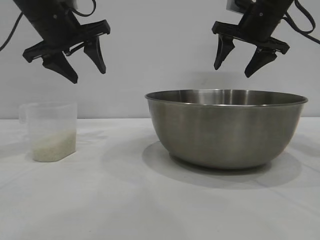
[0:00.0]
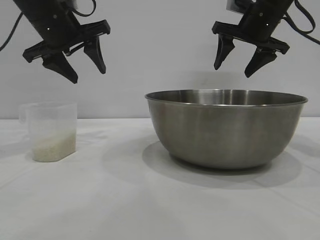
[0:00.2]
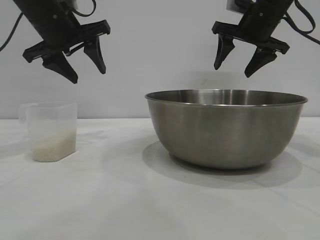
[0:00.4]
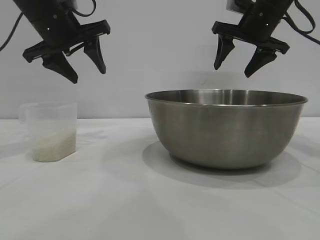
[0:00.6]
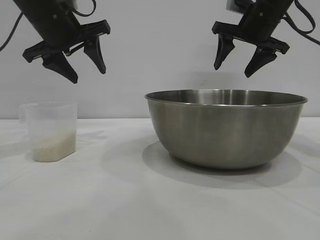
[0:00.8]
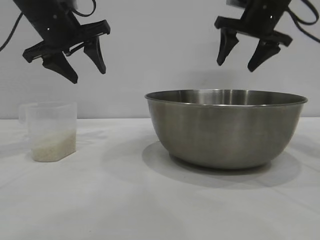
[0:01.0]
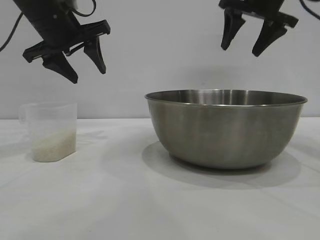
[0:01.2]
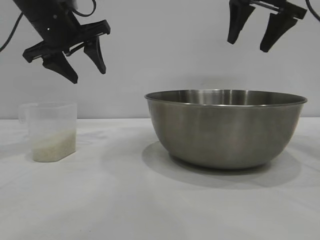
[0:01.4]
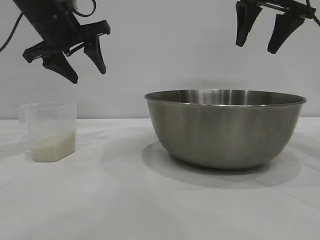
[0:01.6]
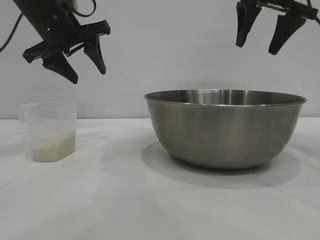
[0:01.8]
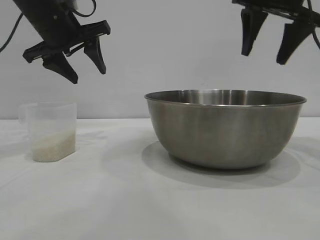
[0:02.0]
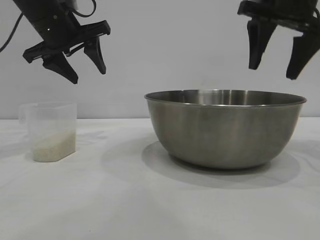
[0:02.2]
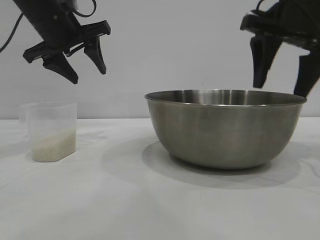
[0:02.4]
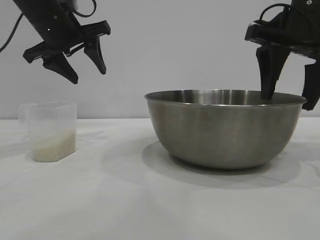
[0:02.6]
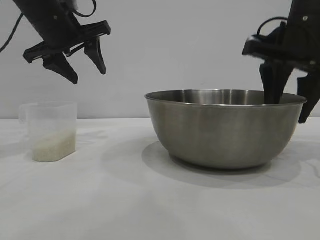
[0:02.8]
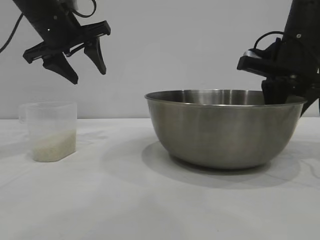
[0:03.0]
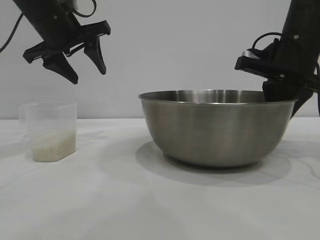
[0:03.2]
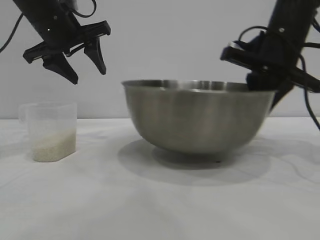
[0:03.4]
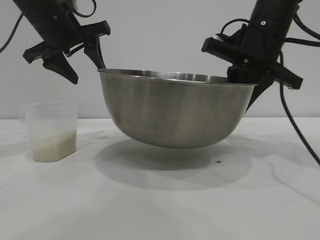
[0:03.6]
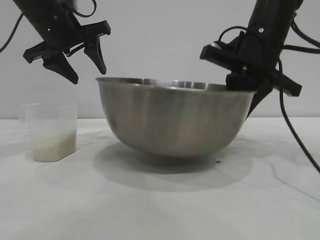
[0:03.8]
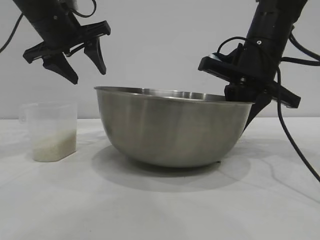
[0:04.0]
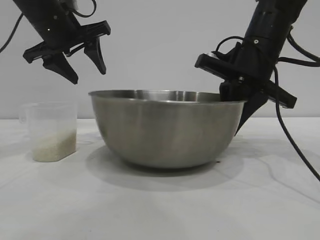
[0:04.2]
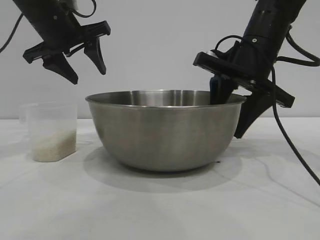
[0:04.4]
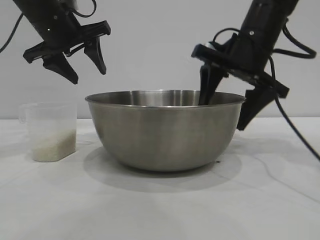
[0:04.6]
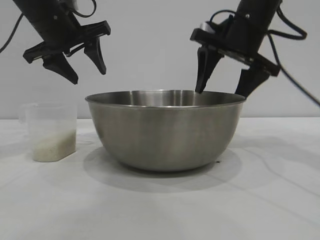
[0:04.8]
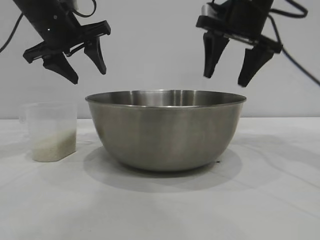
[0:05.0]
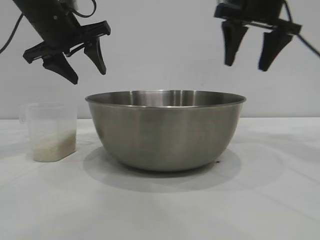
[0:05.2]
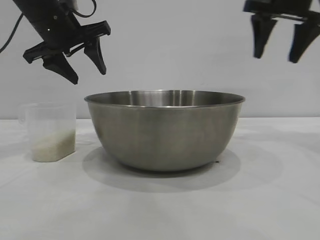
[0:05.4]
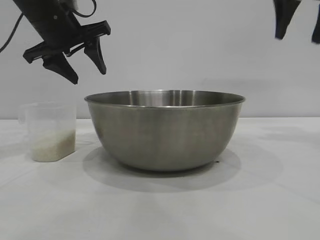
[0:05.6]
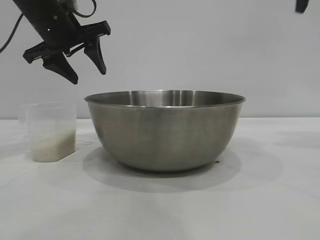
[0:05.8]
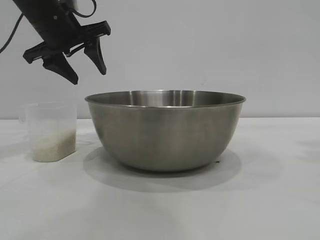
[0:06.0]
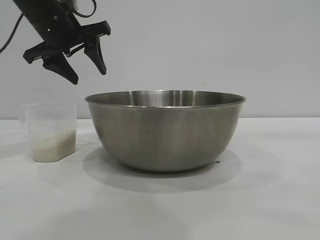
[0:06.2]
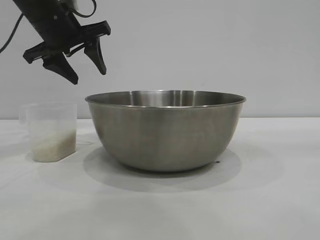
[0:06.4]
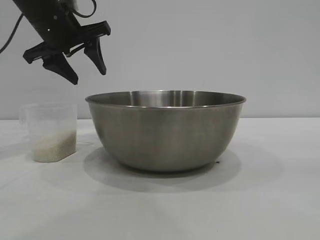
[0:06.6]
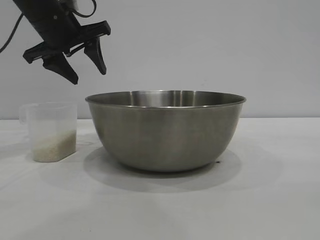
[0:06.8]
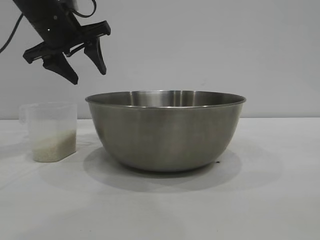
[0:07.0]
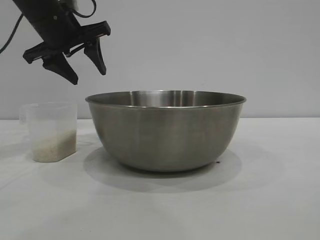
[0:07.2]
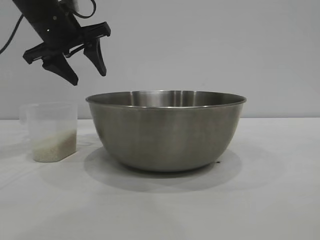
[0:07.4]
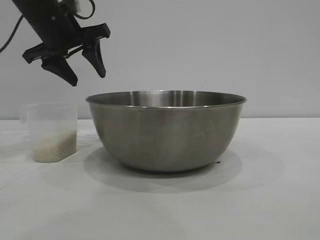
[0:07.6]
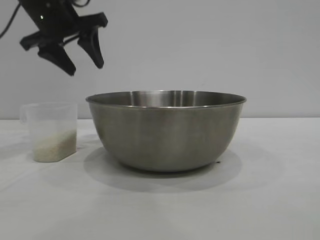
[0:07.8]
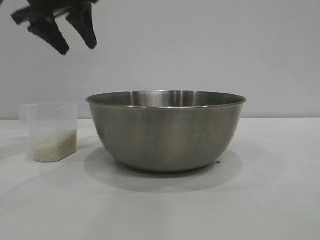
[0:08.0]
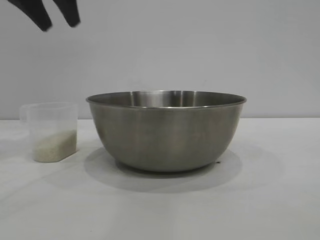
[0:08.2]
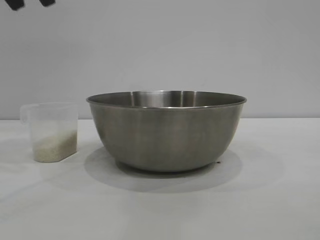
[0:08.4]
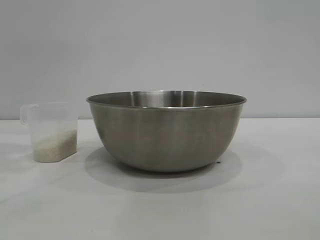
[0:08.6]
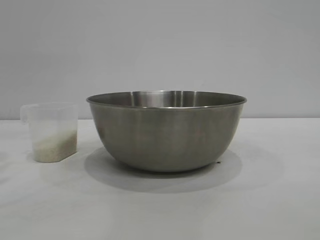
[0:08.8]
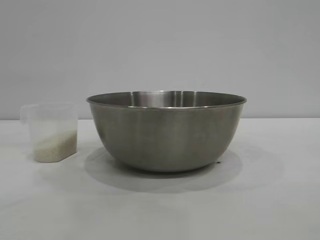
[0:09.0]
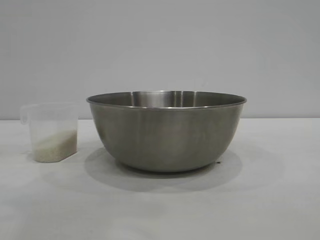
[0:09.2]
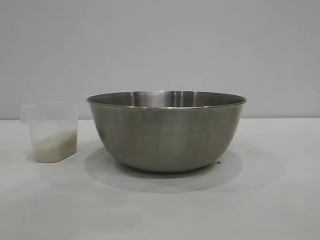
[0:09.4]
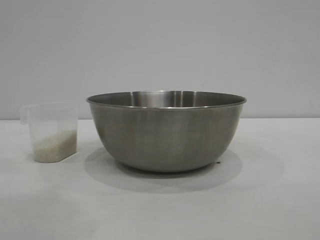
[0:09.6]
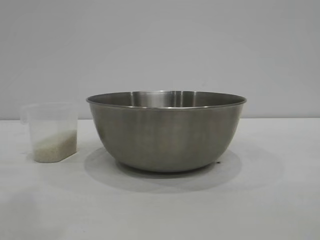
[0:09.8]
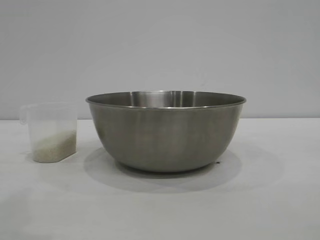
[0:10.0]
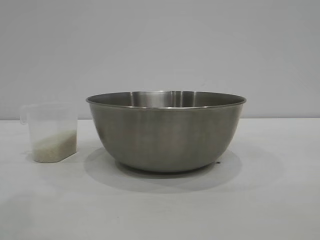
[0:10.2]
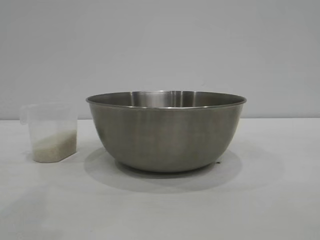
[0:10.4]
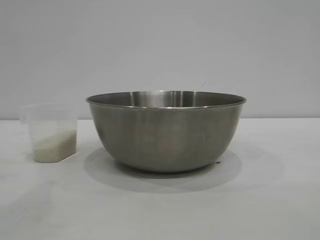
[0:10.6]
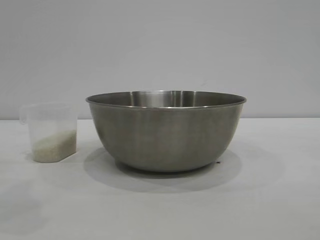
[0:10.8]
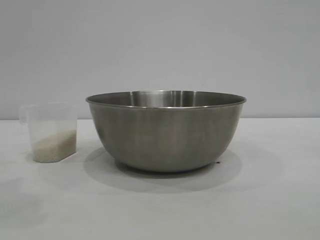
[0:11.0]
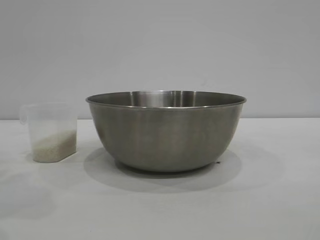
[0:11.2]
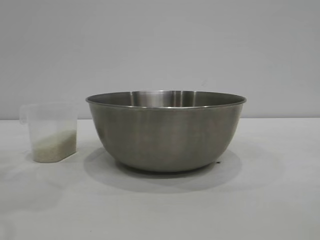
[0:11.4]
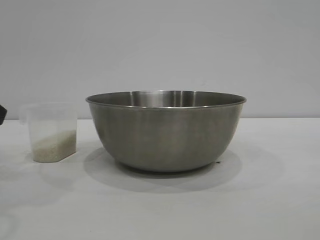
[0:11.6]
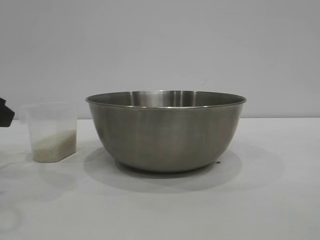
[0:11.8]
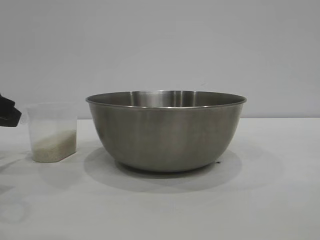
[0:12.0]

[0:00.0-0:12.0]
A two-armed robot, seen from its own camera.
Task of the whole recording: the right gripper grasp the rice container and place it in the center of the table, the left gripper grasp the rice scoop and pour the rice into the rice container.
Step, 0:00.0 to 0:03.4: Pick up the bowl with the right gripper.
Step, 0:03.6 to 0:05.0: Place the bowl in the center of view with the right gripper.

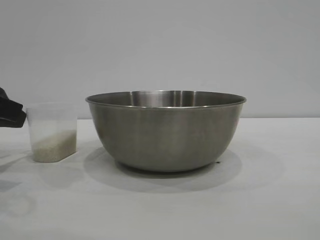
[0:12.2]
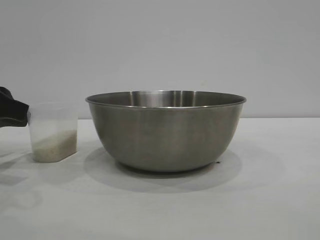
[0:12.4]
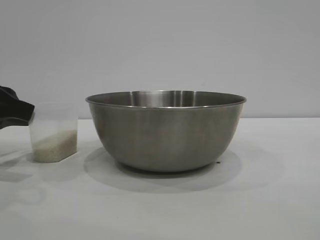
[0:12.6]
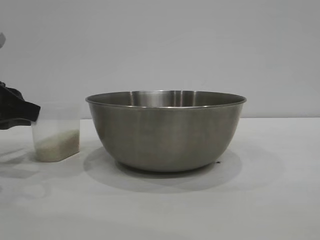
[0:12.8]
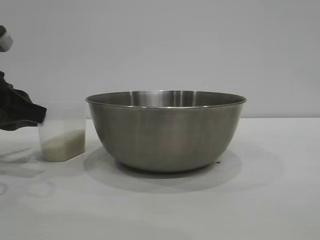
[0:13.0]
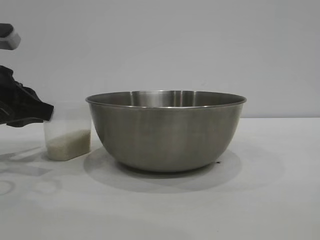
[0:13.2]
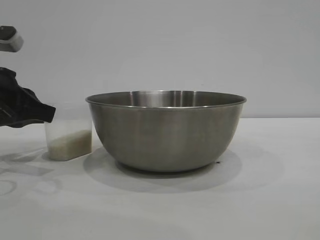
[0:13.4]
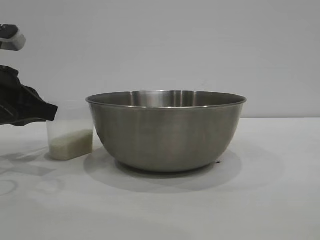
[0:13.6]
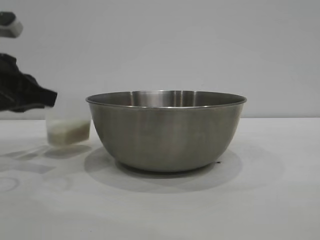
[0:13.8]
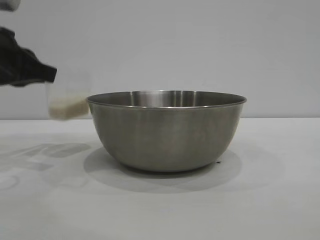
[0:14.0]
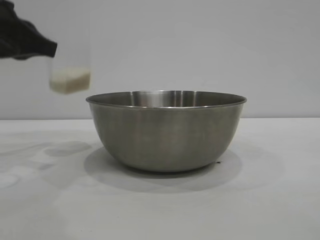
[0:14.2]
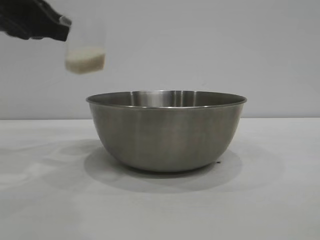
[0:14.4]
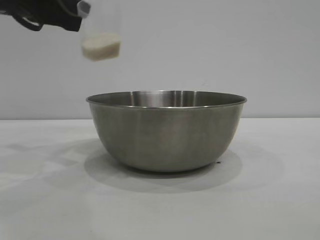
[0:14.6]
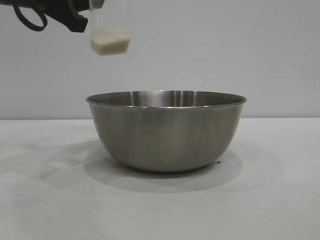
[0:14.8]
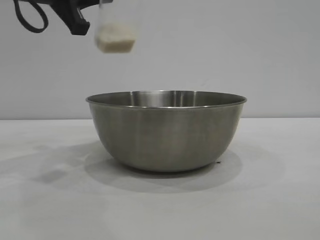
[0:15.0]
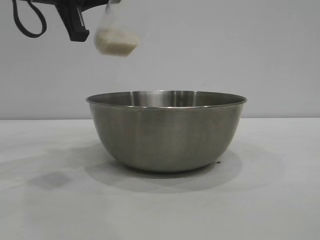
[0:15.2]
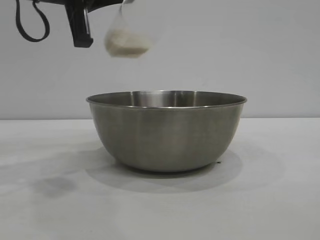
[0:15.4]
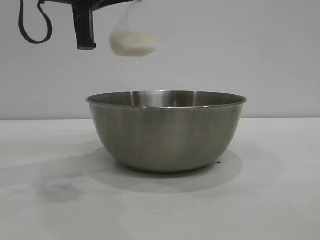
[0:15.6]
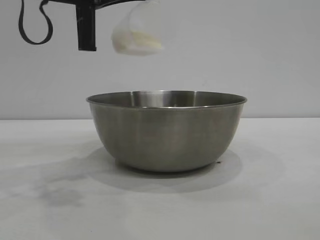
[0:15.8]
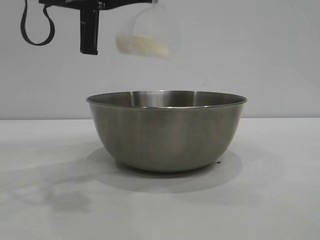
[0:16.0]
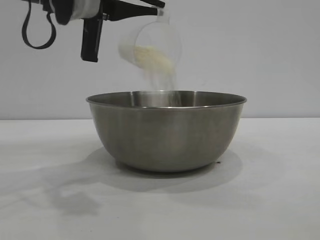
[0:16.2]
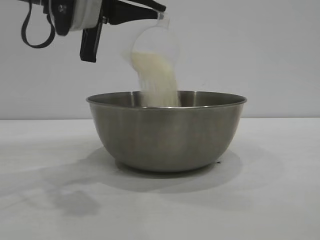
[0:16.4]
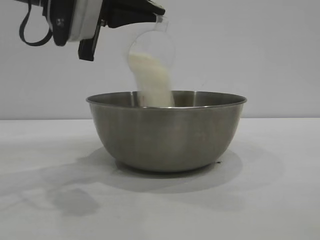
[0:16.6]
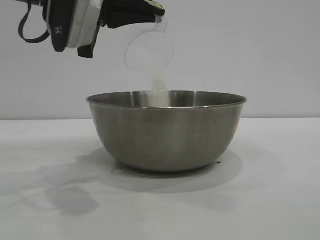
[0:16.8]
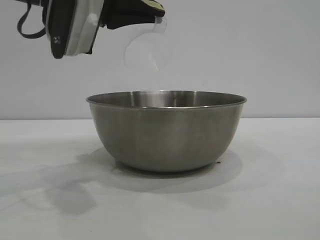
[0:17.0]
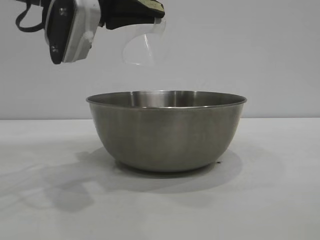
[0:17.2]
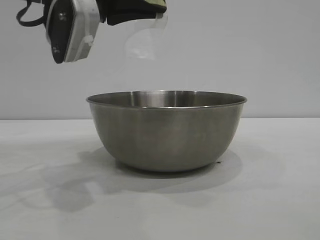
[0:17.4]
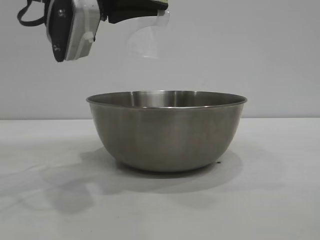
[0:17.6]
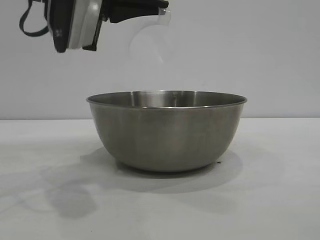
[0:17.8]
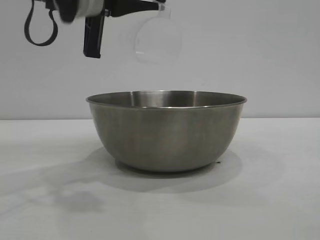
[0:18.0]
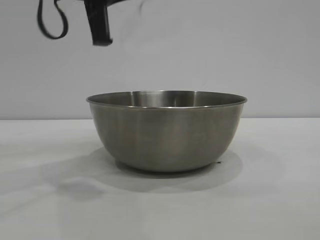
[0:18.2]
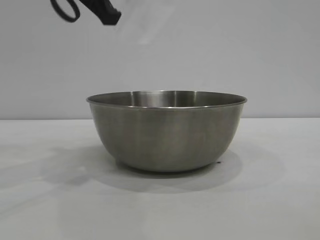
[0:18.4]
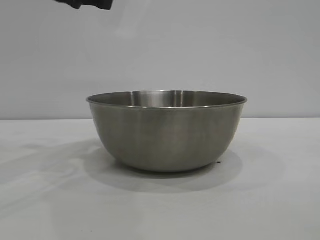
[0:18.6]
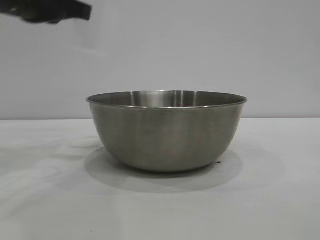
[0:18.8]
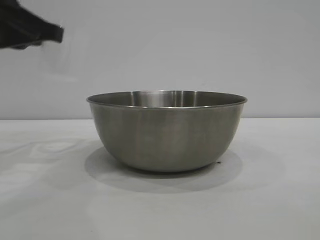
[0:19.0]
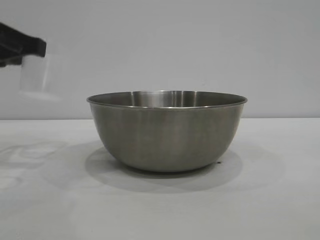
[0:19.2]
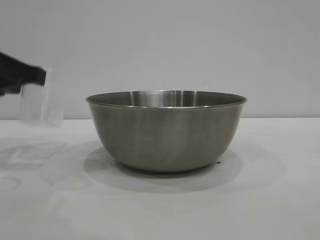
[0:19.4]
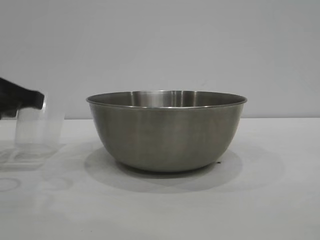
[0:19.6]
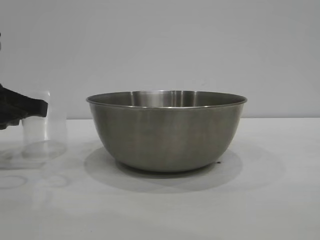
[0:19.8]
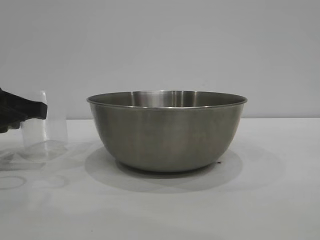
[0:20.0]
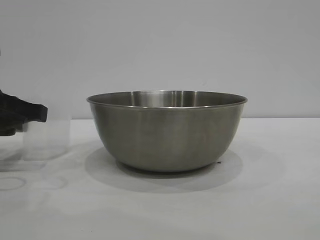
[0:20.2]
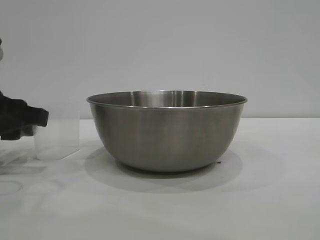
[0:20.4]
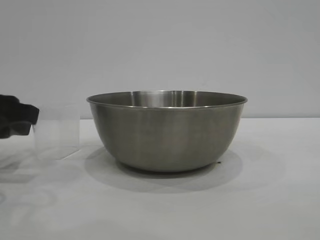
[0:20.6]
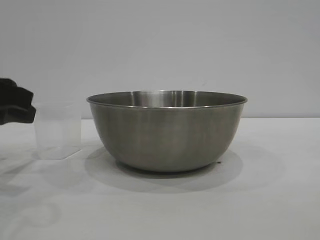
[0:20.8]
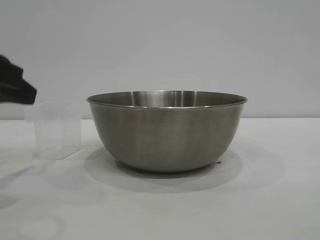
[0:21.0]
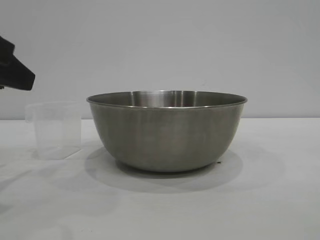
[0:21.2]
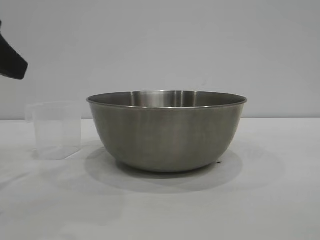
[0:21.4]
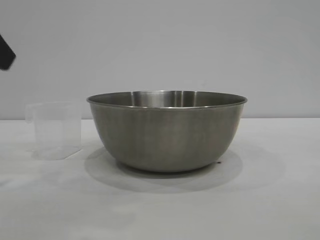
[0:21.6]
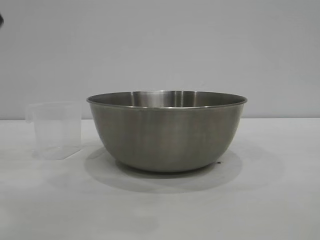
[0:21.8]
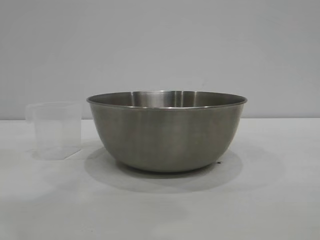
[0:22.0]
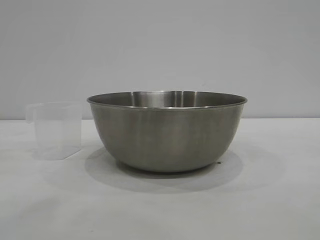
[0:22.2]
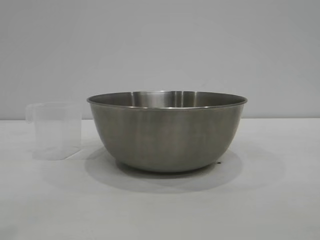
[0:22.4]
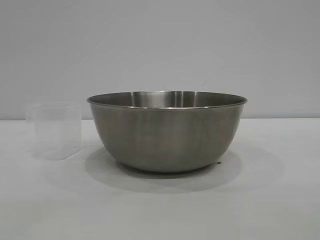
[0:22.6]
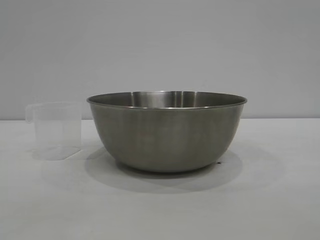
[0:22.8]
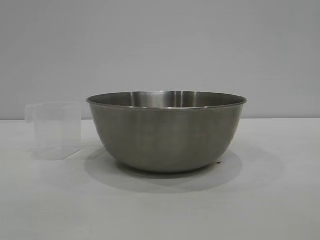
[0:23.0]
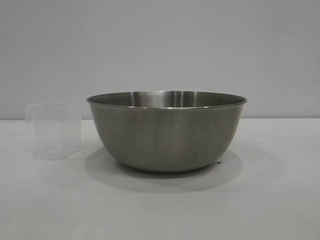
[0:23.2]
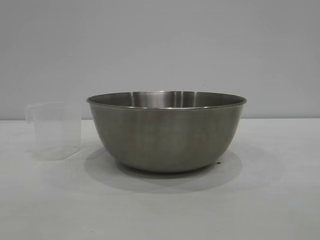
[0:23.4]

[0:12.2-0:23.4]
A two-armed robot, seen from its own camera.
Task of the whole recording: the right gripper grasp the rice container and place it in the center of the table, the left gripper grasp the rice scoop and pour the rice into the rice container.
Step, 0:14.2 to 0:17.0: Pour the rice from the cup into the bowl with the left gripper.
Step, 0:17.4 to 0:21.0: Place the cup on the table with the left gripper.
